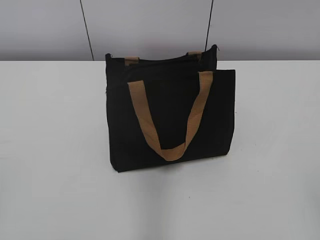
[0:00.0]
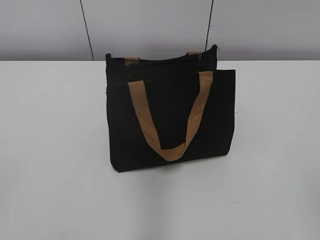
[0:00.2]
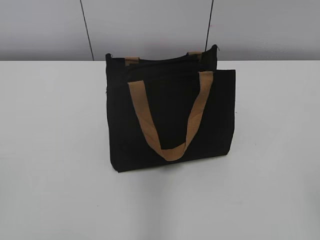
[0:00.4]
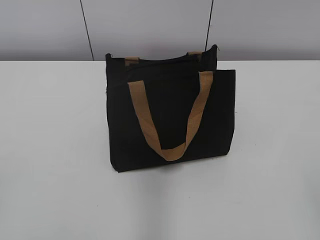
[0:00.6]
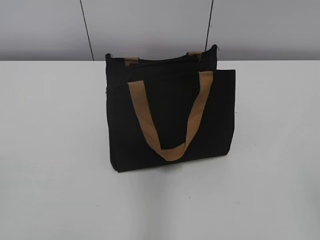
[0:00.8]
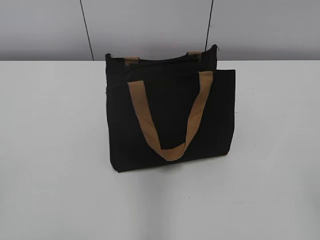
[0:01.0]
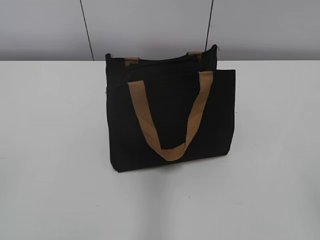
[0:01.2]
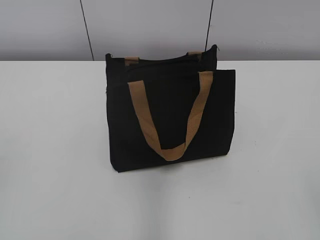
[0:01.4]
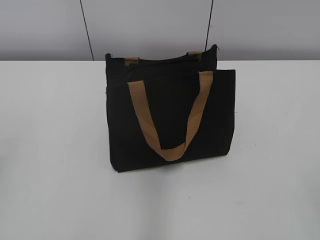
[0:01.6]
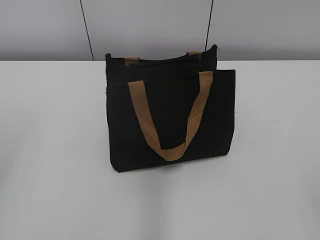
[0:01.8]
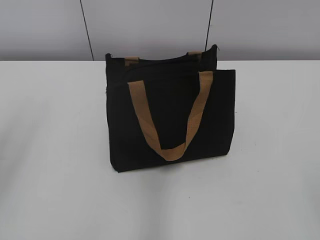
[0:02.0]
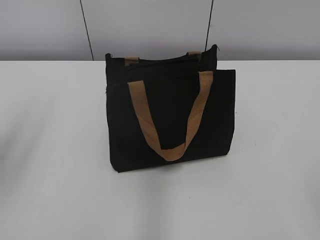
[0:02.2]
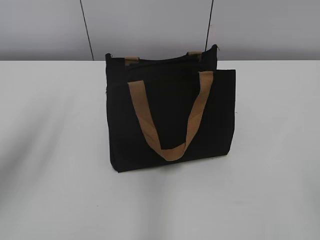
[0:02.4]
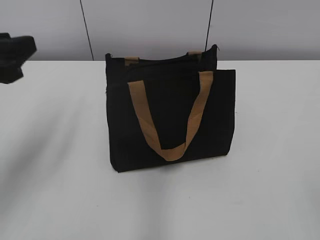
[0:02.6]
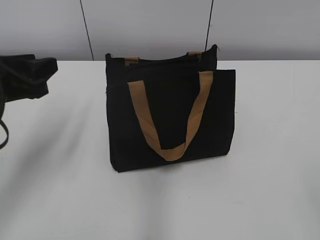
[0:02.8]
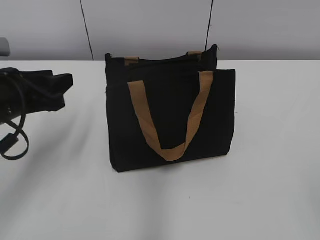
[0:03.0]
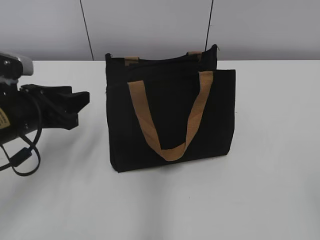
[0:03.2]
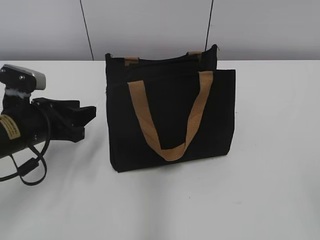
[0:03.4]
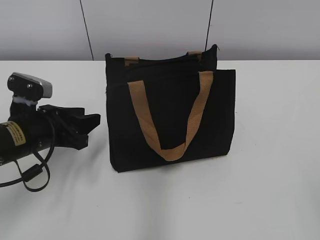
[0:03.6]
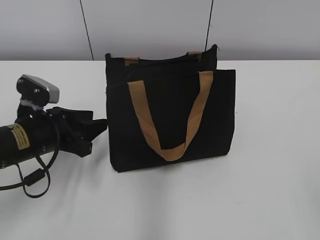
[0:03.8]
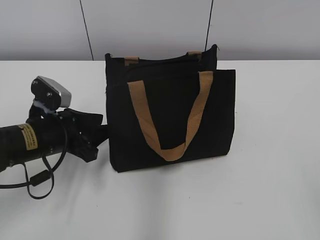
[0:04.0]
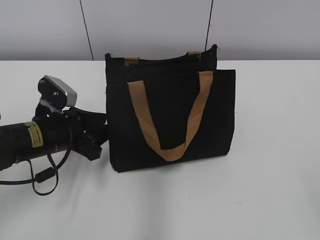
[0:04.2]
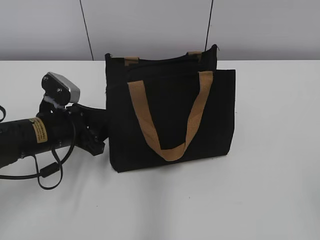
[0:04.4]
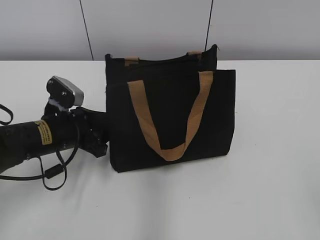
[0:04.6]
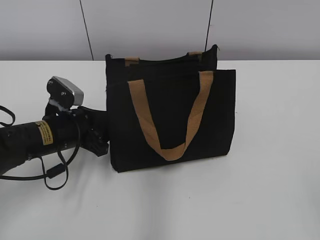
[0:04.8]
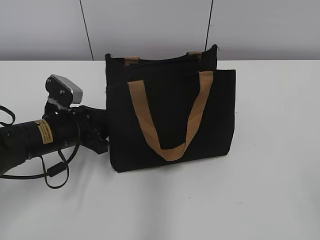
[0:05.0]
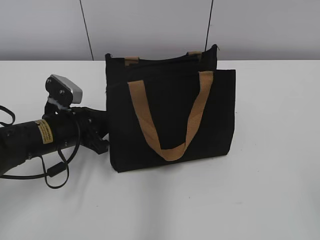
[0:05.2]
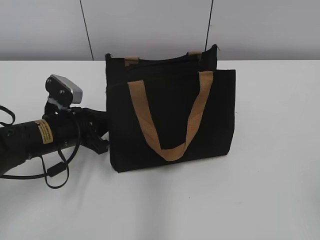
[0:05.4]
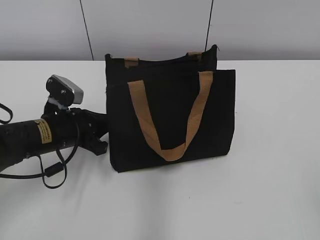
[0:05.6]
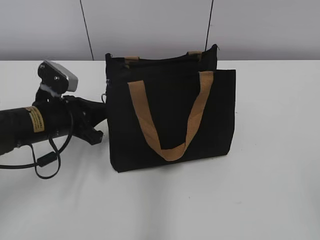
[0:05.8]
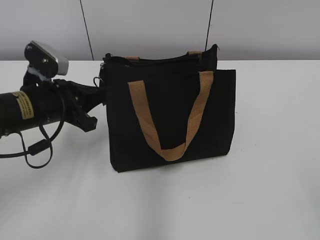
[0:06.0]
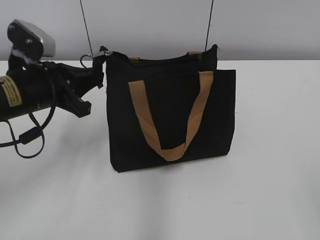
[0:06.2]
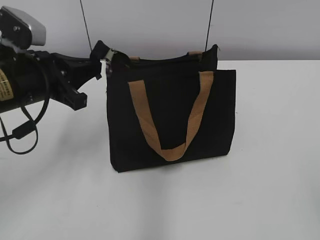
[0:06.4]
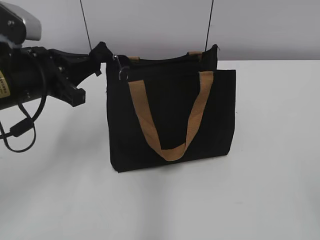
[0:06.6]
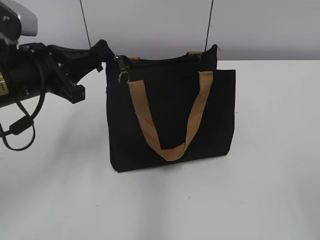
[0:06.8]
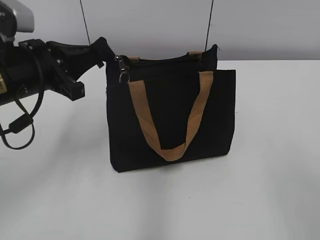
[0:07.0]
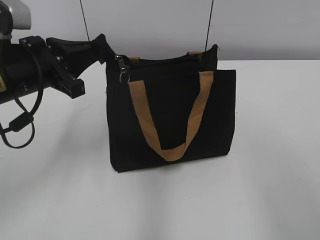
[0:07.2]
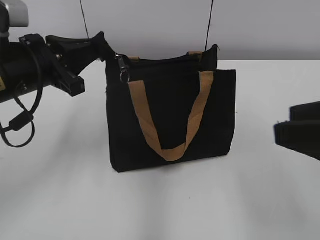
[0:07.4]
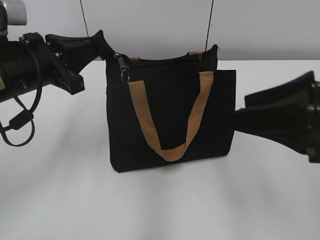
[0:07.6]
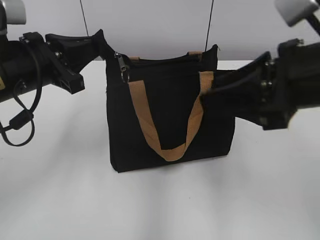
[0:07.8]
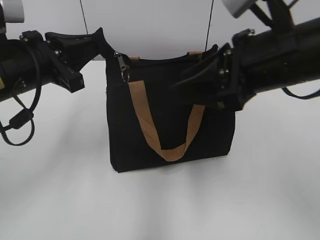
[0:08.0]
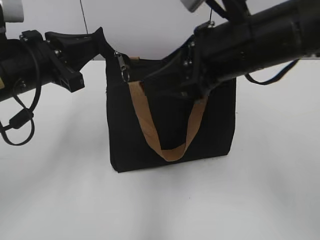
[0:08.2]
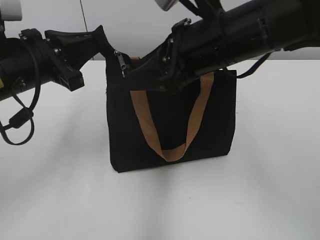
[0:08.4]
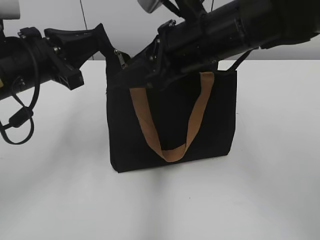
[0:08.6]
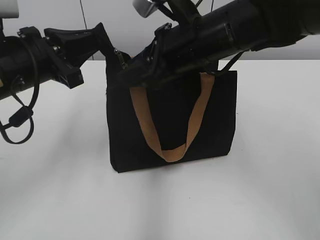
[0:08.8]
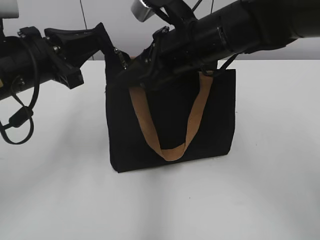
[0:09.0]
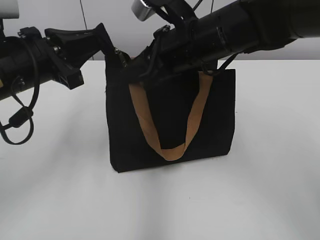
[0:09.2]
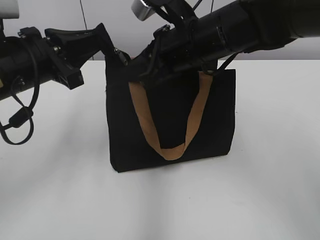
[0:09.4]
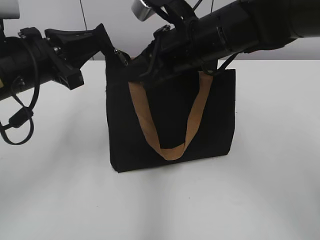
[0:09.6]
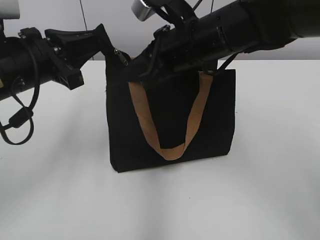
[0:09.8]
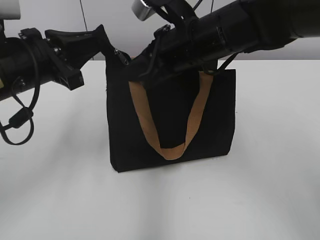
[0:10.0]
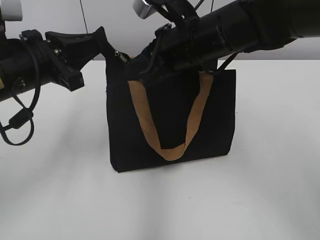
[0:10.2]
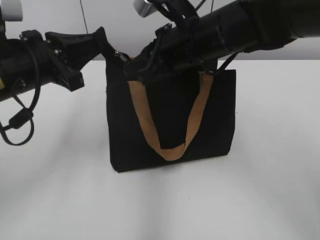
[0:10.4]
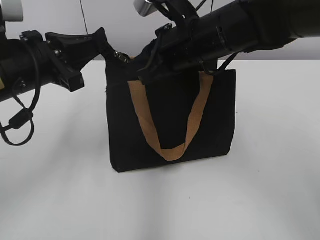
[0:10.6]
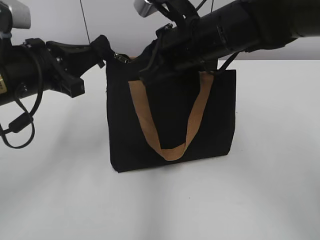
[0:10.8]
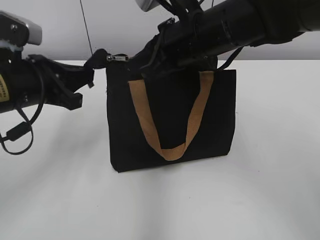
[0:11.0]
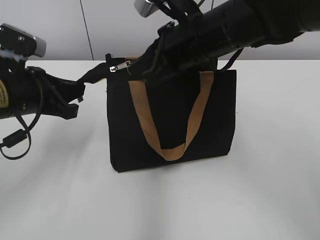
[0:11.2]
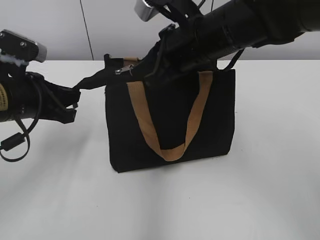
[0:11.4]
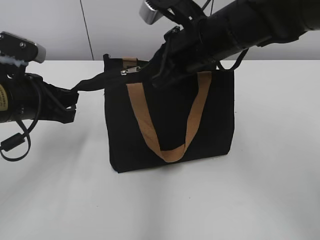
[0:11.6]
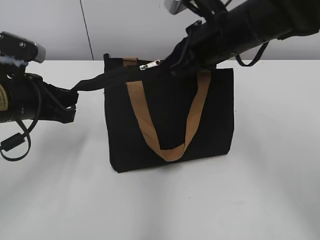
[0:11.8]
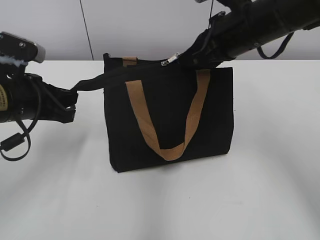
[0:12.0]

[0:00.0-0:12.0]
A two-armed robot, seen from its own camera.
0:01.6 to 0:03.0: The left gripper shifts roughly 25 cm forward, downward and to the right.
0:03.0 to 0:04.4: The left gripper shifts roughly 10 cm downward.
0:04.4 to 0:06.0: The left gripper closes its fingers.
0:06.0 to 0:07.6: The left gripper travels upward by some 10 cm. Meanwhile the right gripper goes roughly 15 cm forward and to the left.
0:07.6 to 0:09.0: The right gripper shifts roughly 25 cm forward and to the left.
0:09.0 to 0:10.4: The right gripper closes its fingers.
0:10.4 to 0:12.0: The right gripper goes roughly 5 cm to the right. Meanwhile the left gripper changes place by approximately 5 cm.

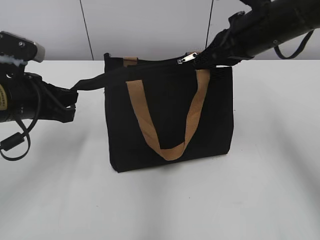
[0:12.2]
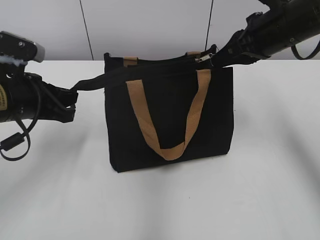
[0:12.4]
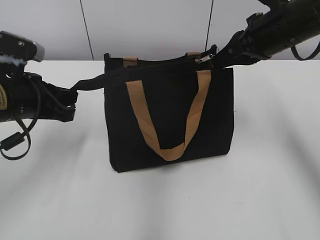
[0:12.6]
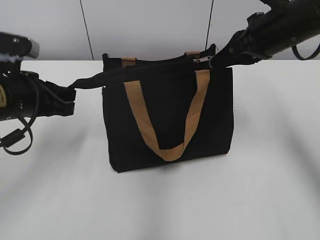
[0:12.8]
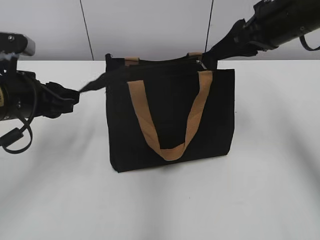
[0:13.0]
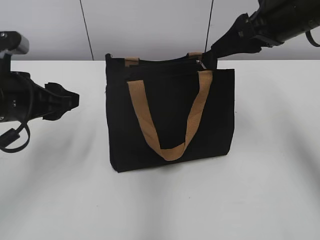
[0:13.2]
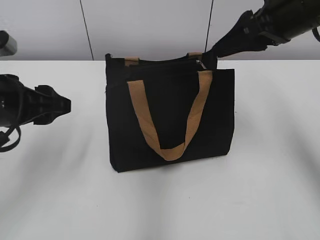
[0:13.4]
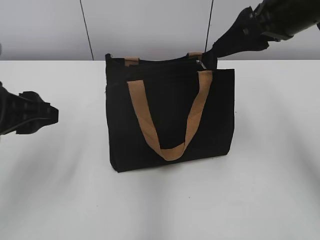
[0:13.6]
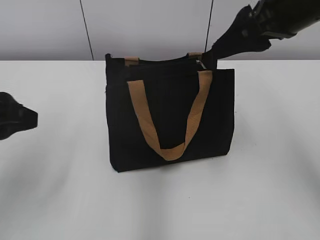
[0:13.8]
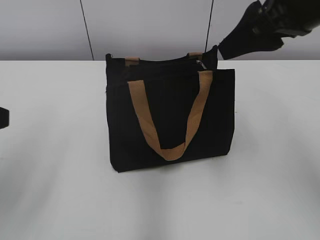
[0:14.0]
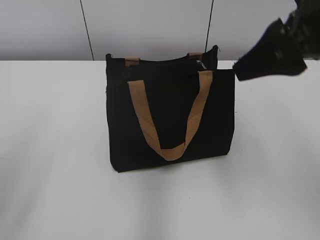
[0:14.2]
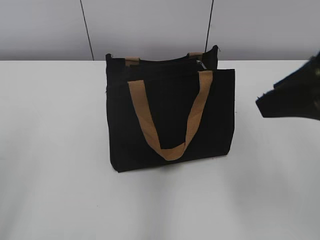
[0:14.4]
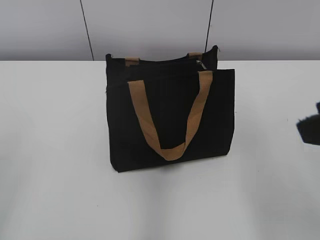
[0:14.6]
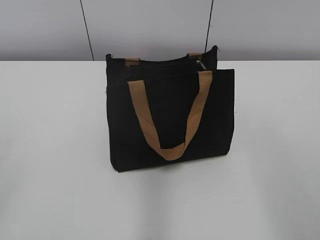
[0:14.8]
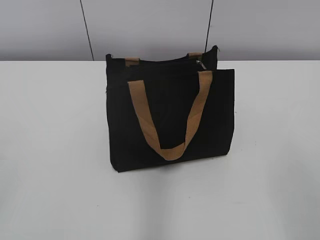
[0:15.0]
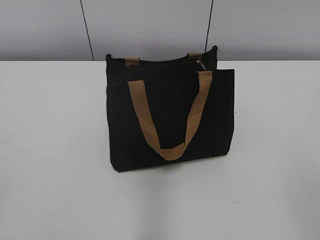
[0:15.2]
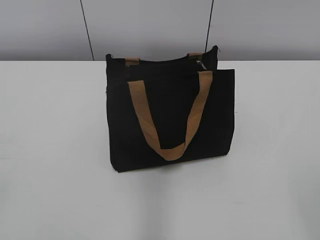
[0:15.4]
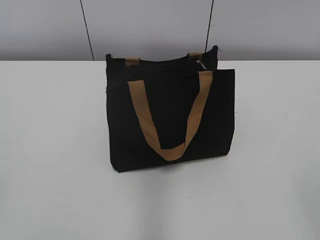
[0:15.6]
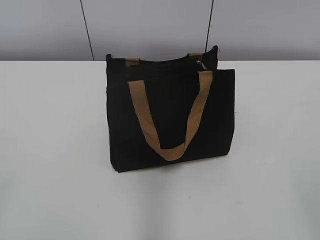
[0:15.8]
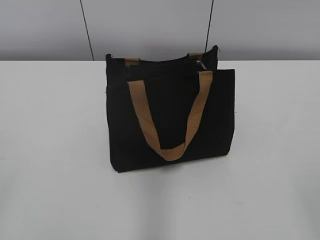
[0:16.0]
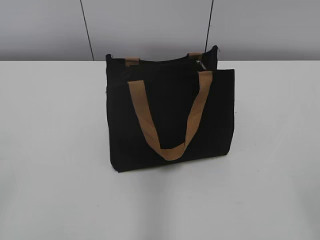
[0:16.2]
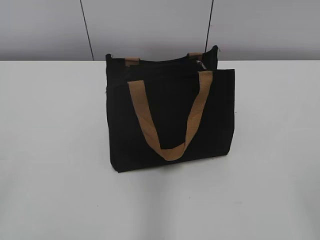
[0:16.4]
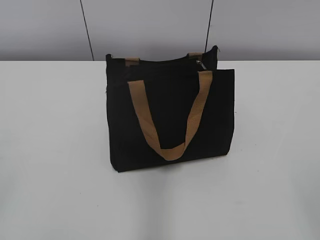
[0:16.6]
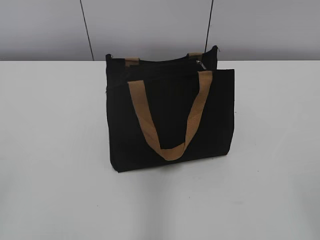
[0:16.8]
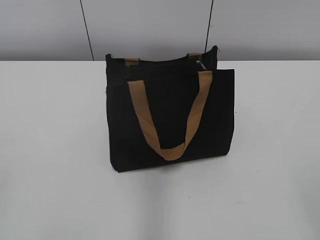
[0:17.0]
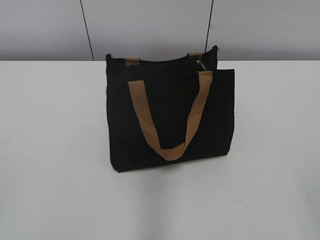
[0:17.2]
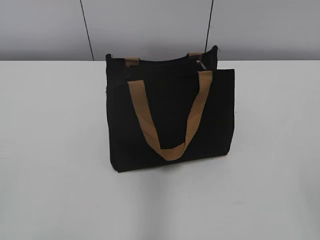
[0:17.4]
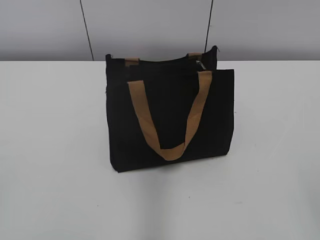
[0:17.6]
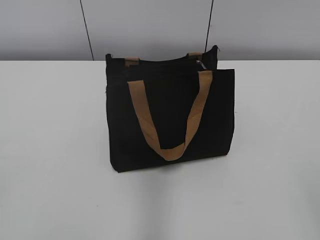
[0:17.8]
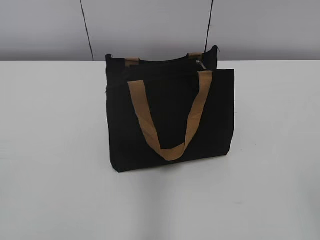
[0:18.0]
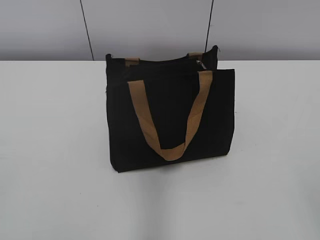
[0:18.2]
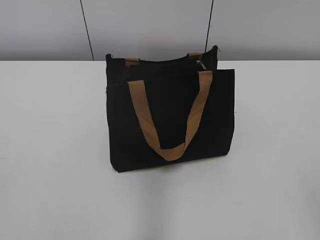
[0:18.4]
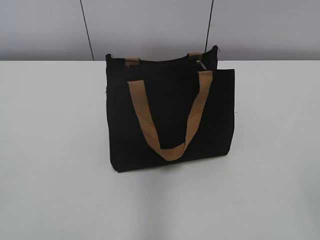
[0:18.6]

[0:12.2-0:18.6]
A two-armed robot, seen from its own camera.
0:12.2 to 0:13.8: The left gripper shifts some 10 cm backward and upward, and opens up; the right gripper moves upward, about 5 cm, and opens its fingers.
0:13.8 to 0:15.4: The right gripper travels backward by some 30 cm; the left gripper shifts some 25 cm backward and to the left.
